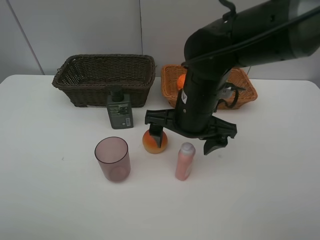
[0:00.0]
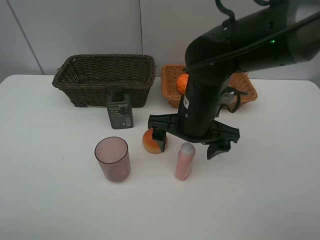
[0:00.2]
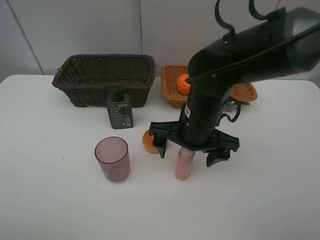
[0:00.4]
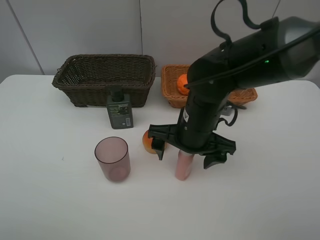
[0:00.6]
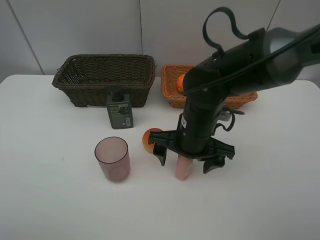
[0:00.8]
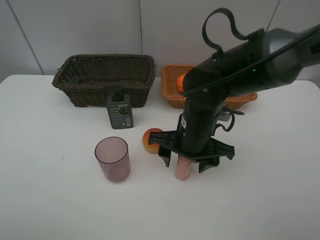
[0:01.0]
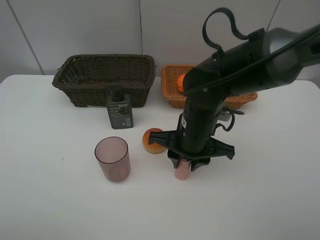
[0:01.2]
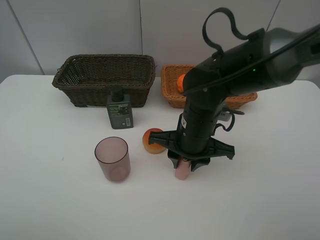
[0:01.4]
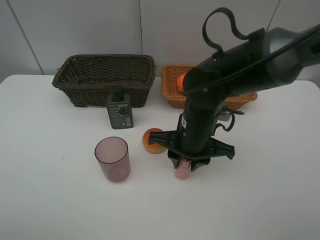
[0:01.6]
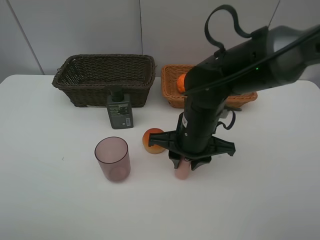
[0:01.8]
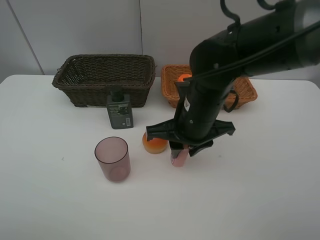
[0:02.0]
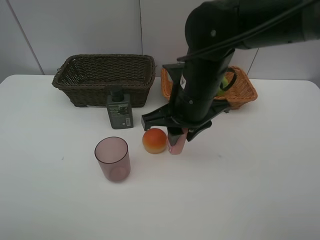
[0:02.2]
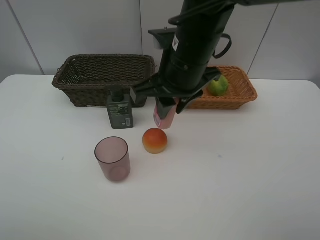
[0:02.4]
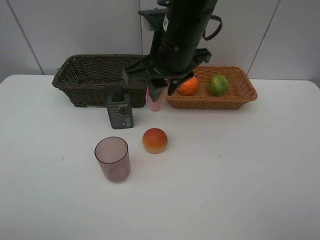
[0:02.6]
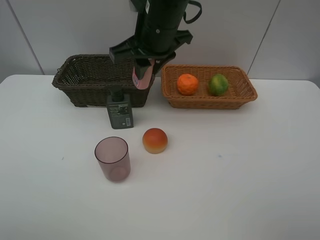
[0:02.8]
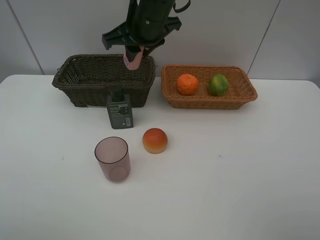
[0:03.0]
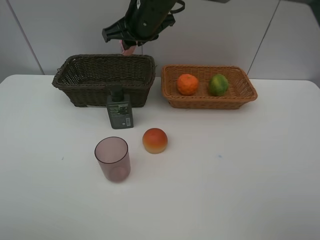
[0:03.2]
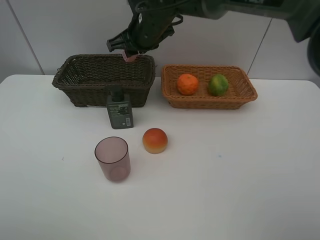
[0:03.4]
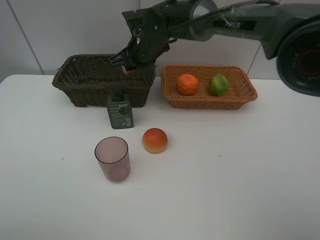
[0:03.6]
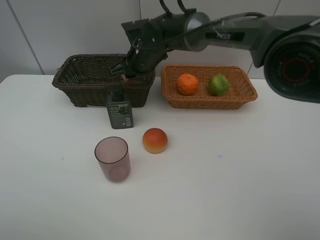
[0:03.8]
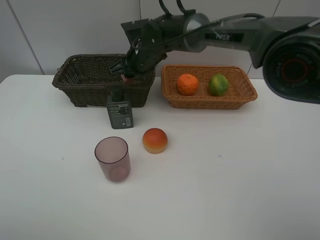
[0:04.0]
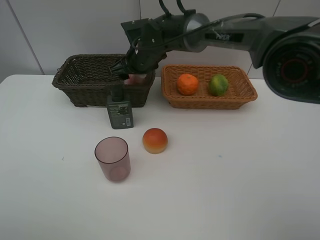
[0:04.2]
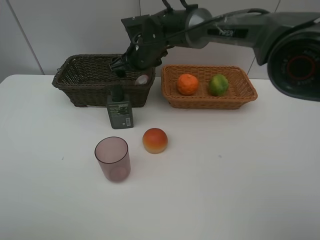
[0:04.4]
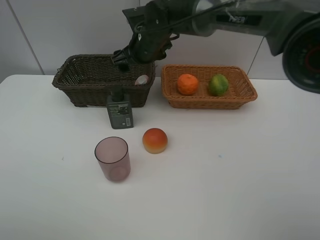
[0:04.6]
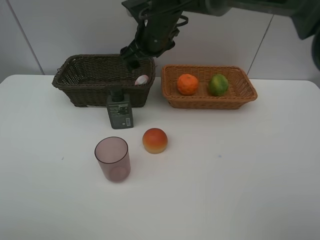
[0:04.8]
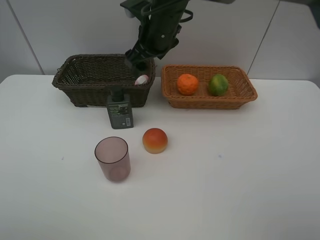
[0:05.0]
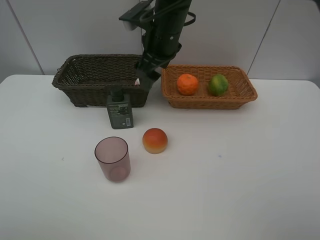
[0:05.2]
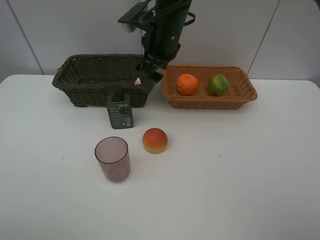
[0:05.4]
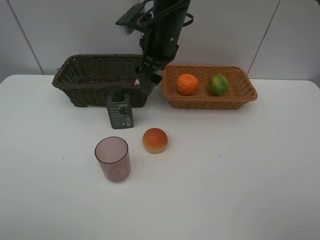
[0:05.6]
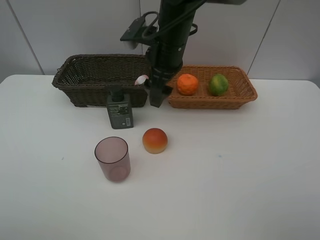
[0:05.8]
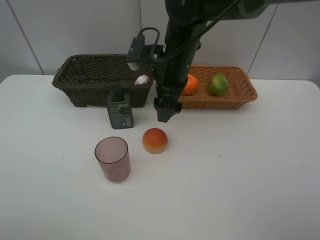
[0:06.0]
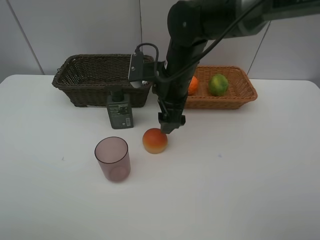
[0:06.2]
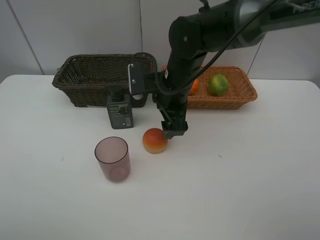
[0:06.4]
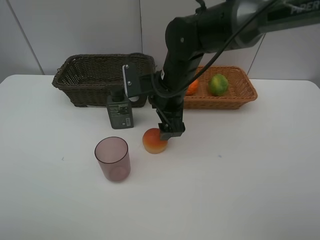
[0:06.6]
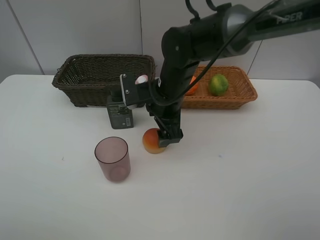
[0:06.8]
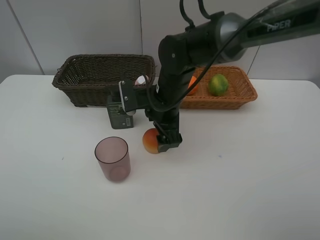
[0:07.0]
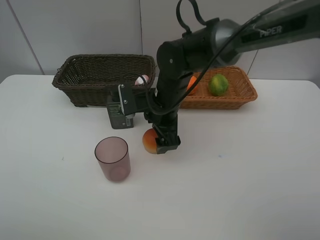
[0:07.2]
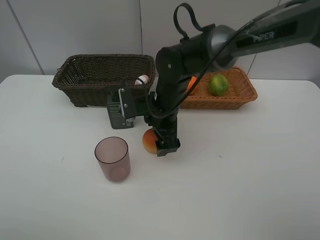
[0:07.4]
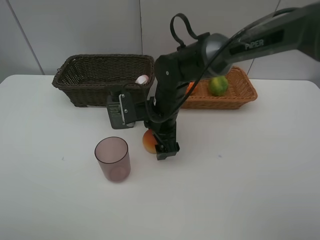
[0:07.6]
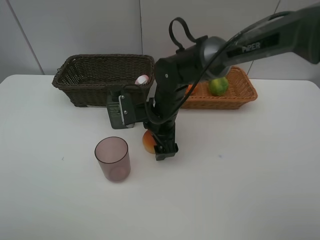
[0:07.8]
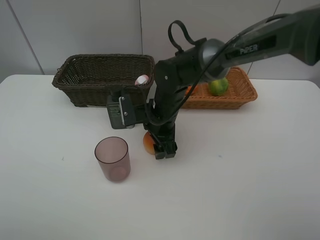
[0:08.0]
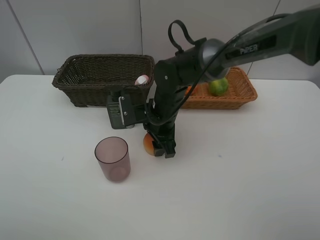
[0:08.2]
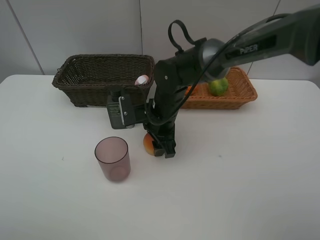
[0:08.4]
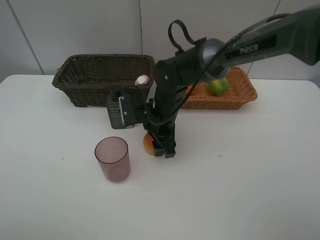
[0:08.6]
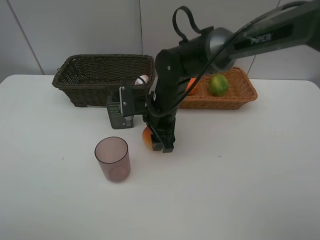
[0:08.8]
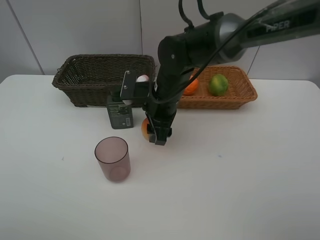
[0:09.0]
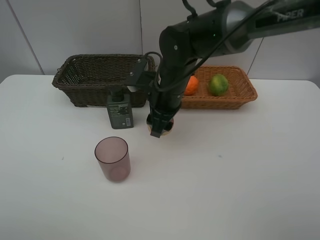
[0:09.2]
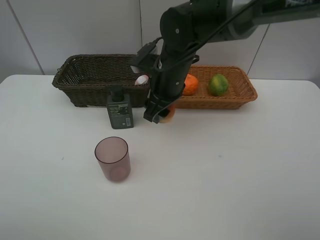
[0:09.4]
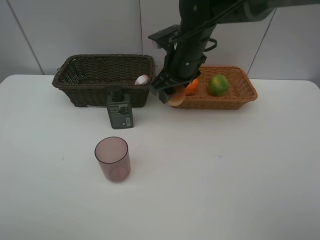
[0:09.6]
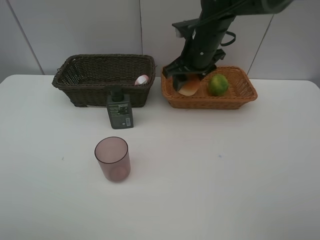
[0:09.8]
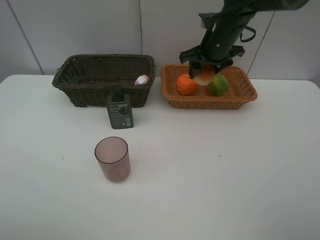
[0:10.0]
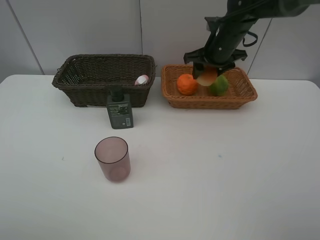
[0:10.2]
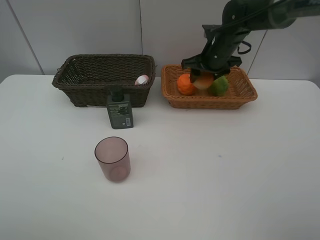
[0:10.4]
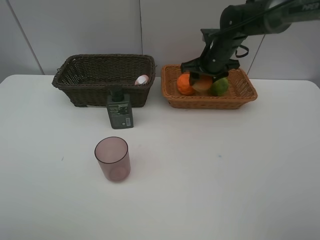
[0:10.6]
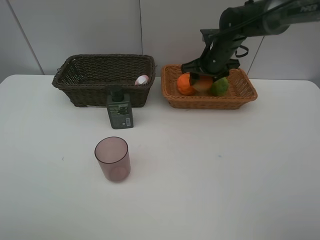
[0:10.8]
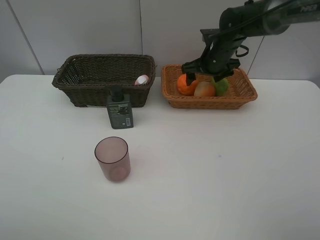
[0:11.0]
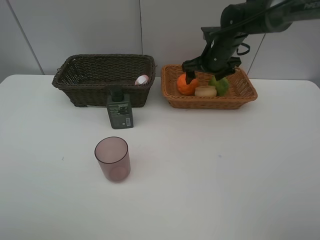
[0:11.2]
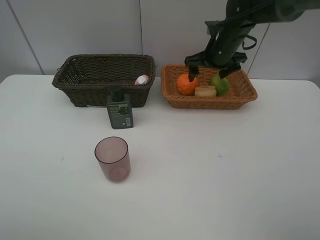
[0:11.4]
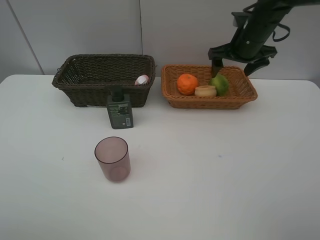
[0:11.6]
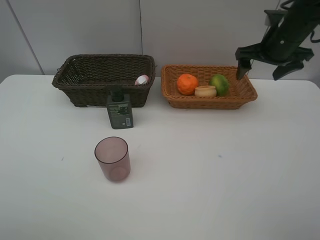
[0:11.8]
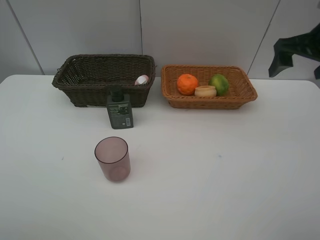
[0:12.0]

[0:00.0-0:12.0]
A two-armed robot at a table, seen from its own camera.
Task of the whole recording: place multiple objects separately in different baskets.
0:00.0 to 0:01.6: The right gripper closes.
0:01.6 to 0:03.0: The right gripper moves upward, forward and to the left, about 20 cm.
0:03.0 to 0:04.4: The right gripper heads downward and forward, covering about 15 cm, and opens up.
0:04.4 to 0:06.0: The right gripper travels backward and to the right by some 10 cm.
0:06.0 to 0:07.6: The right gripper goes about 10 cm downward.
0:07.6 to 0:09.0: The right gripper closes up.
0:09.0 to 0:10.4: The right gripper moves to the right and forward, some 20 cm.
0:10.4 to 0:12.0: The right gripper shifts approximately 25 cm backward, to the right and upward, and opens.

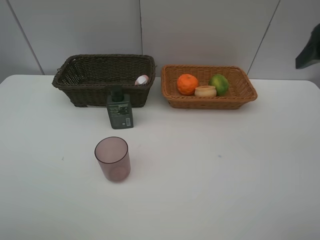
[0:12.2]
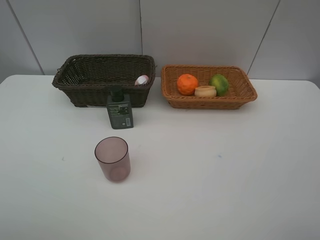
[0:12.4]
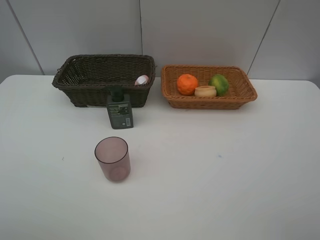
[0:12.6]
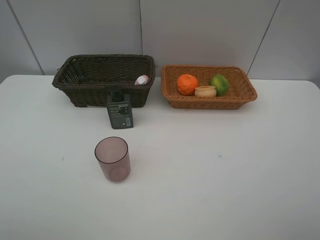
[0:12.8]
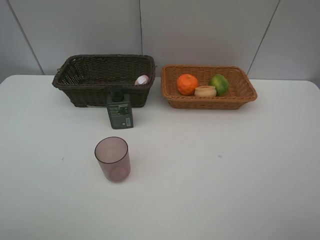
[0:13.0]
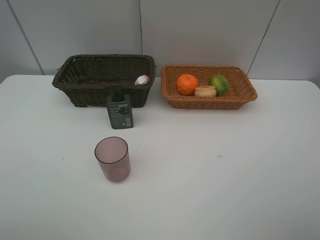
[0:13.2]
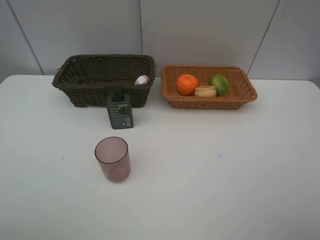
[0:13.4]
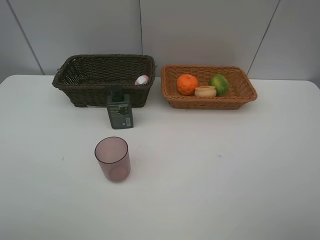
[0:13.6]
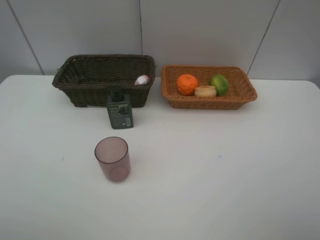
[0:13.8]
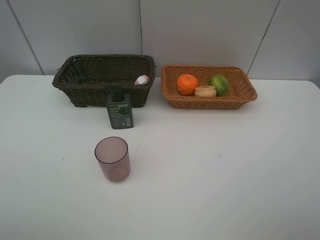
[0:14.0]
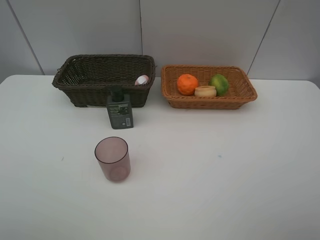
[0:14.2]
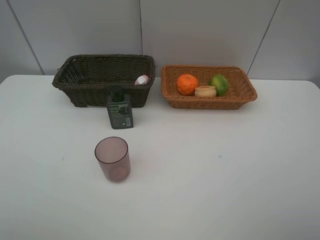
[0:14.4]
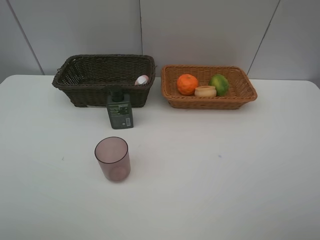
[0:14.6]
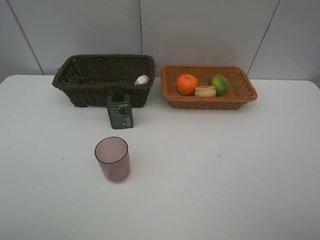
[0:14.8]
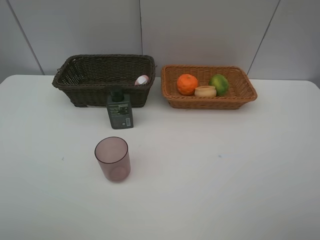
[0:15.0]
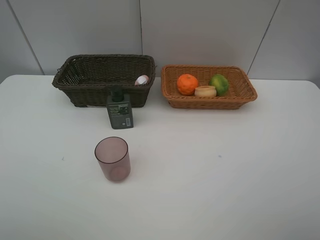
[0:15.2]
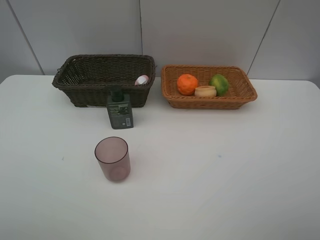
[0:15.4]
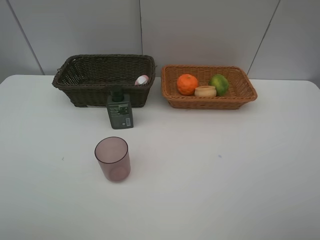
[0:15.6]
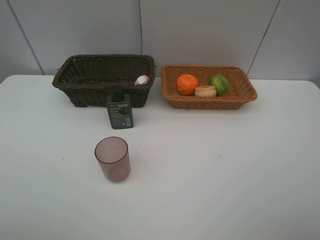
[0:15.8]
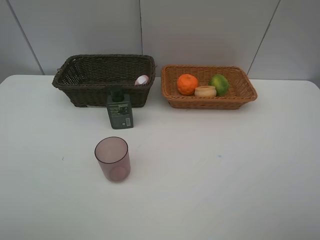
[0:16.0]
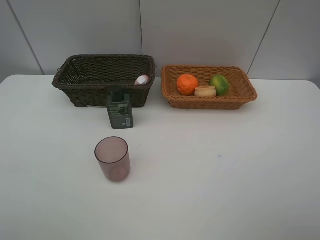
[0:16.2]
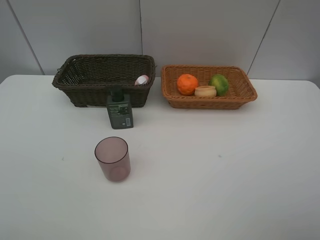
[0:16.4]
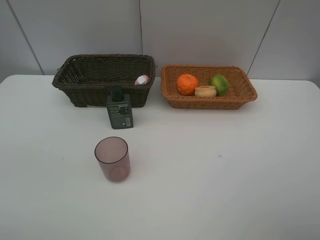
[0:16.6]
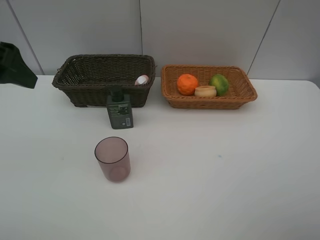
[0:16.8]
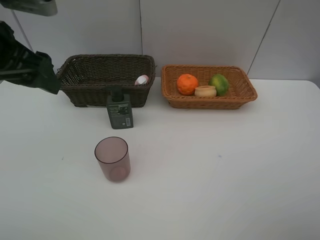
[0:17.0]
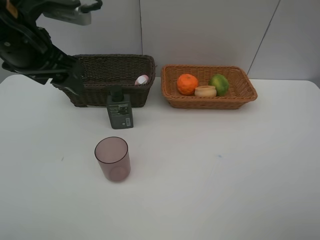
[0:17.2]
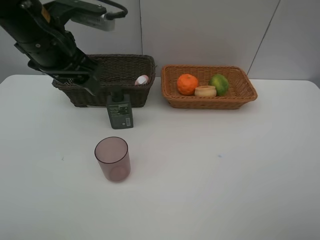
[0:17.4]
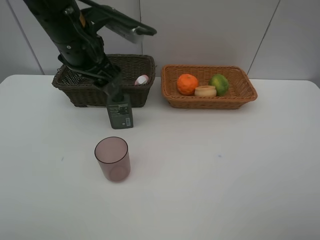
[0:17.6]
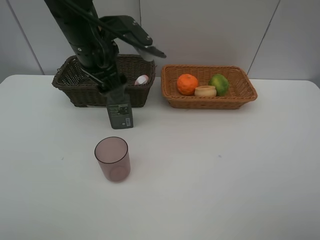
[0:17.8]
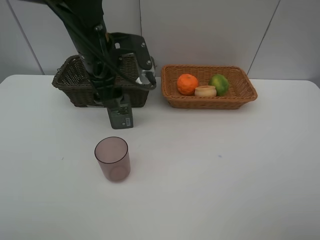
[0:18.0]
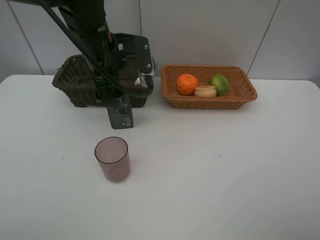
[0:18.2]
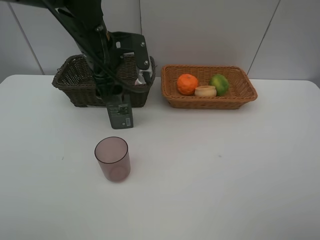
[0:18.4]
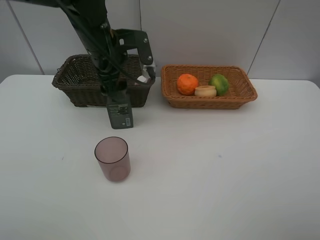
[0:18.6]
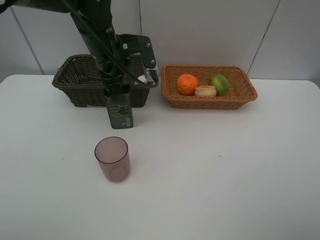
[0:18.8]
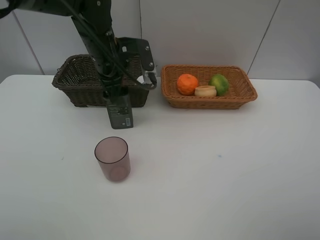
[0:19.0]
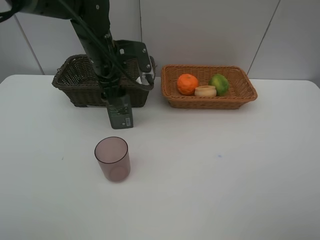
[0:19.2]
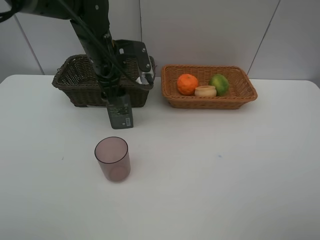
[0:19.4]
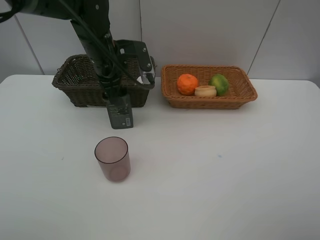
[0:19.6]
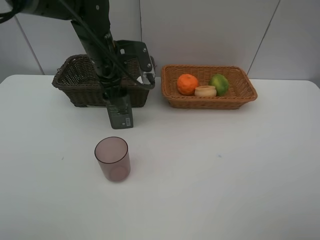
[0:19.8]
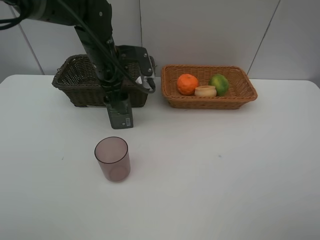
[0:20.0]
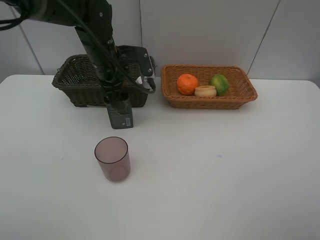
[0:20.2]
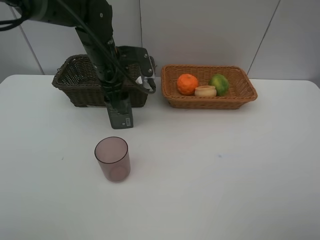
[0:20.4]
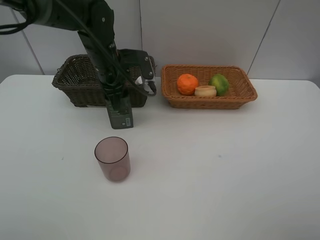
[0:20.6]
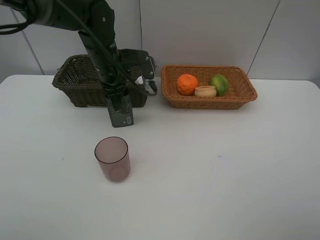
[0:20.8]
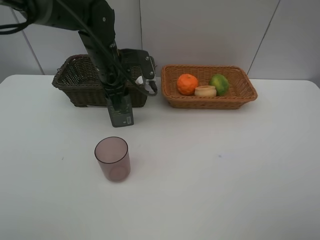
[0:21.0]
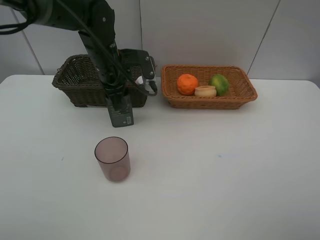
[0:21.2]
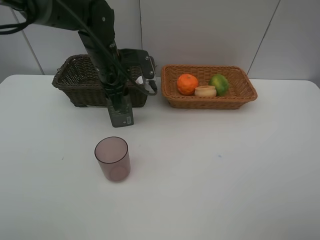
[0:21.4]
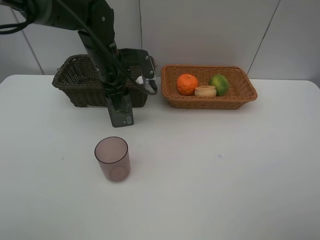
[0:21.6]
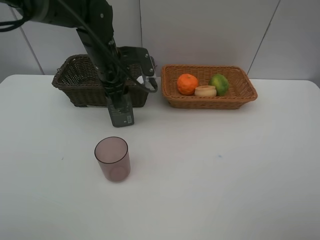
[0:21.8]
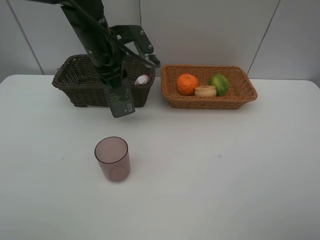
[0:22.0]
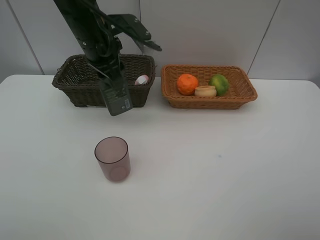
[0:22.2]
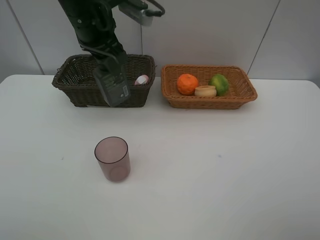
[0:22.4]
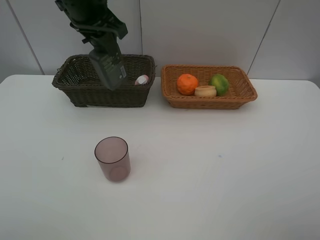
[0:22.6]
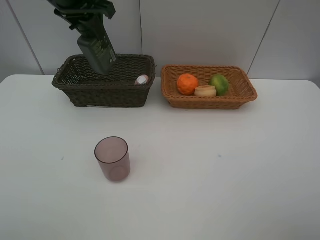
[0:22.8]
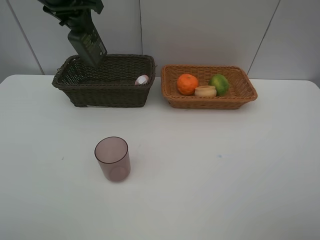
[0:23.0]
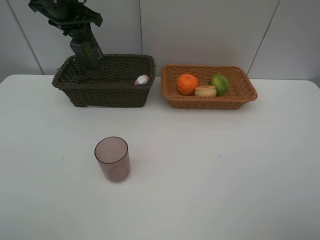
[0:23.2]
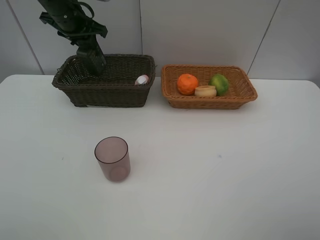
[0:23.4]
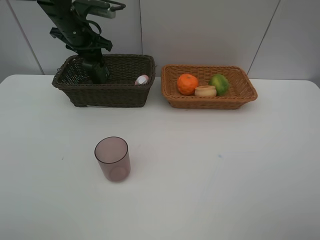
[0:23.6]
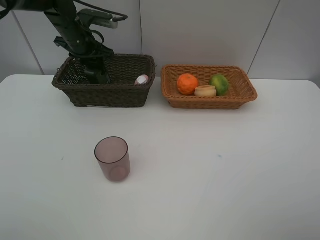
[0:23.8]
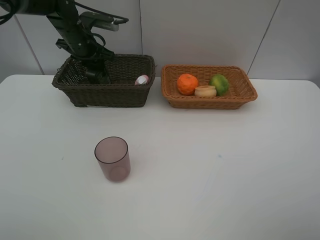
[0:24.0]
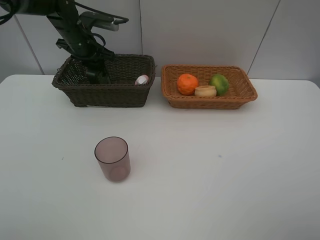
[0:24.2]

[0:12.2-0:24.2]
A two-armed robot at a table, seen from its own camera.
Task of the whole recording: place multiple objects separately in different baskets.
0:12.2 to 0:13.8: The right gripper goes about 25 cm backward.
0:13.8 to 0:15.2: Neither gripper changes place.
0:16.6 to 0:18.2: The left gripper goes roughly 25 cm to the right, forward and downward.
0:18.2 to 0:19.8: The left gripper changes place by some 5 cm.
0:19.8 to 0:21.2: The left gripper closes its fingers.
0:21.2 to 0:22.6: The left gripper goes approximately 15 cm upward.
0:22.6 to 0:24.2: The left gripper is displaced downward, forward and to the left by roughly 20 cm.
